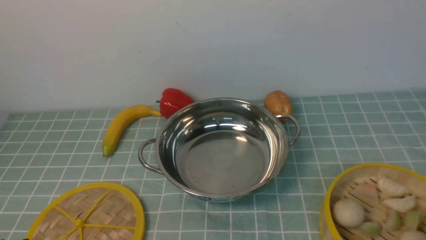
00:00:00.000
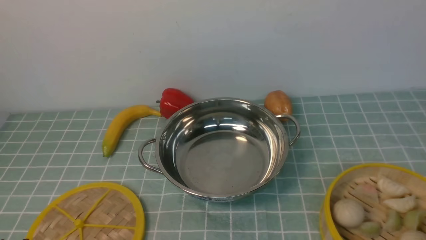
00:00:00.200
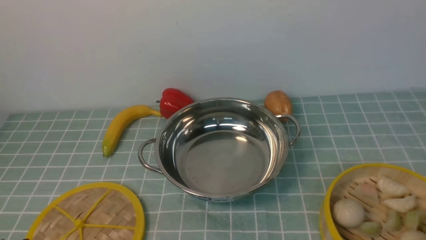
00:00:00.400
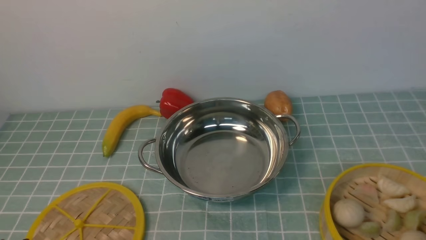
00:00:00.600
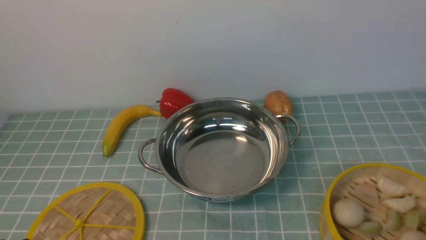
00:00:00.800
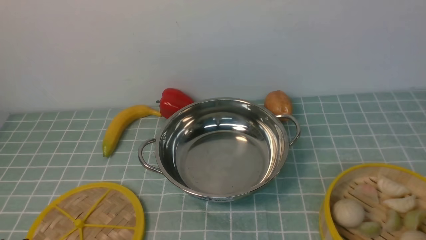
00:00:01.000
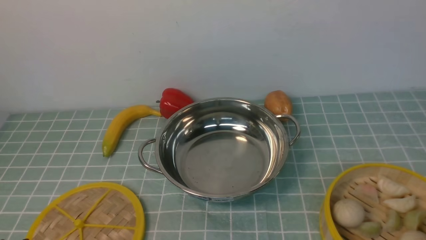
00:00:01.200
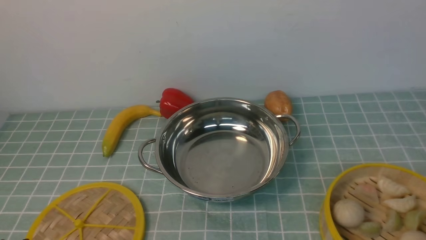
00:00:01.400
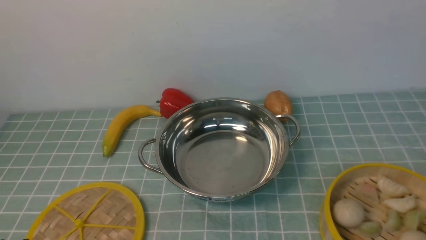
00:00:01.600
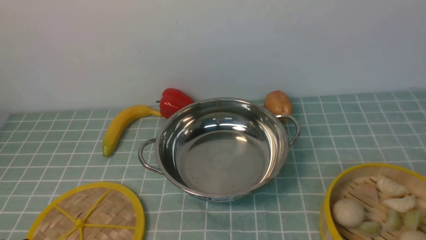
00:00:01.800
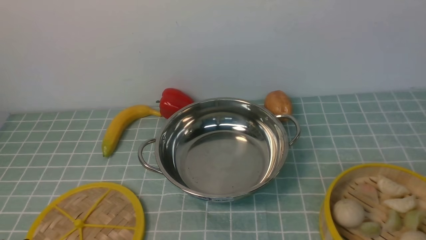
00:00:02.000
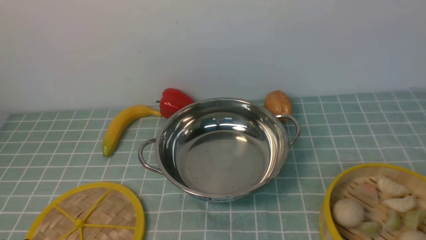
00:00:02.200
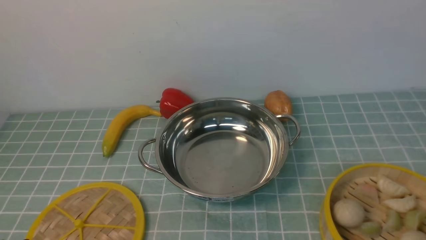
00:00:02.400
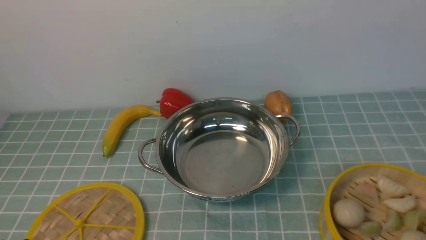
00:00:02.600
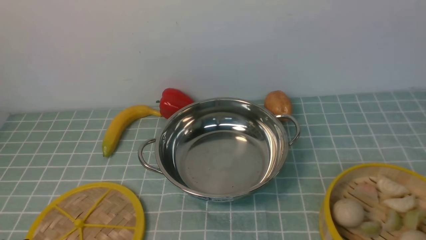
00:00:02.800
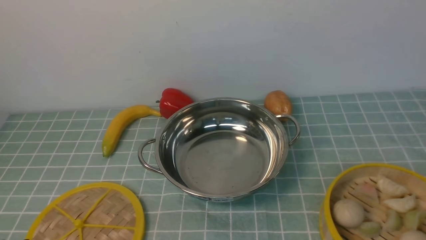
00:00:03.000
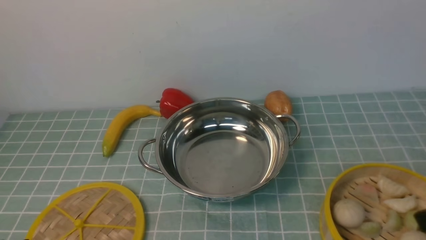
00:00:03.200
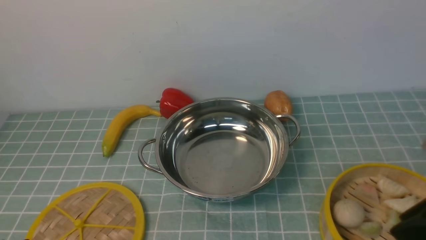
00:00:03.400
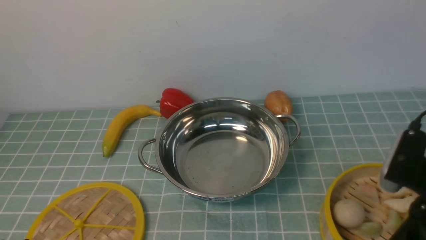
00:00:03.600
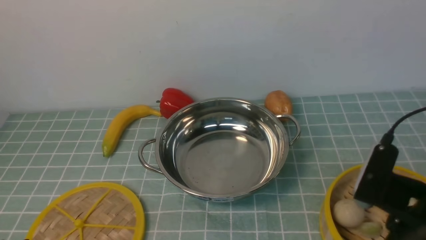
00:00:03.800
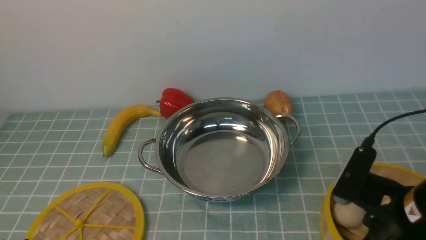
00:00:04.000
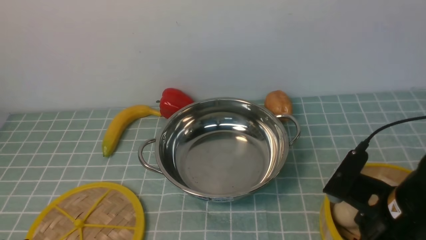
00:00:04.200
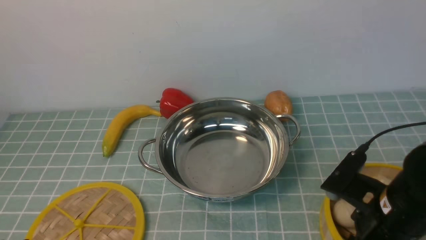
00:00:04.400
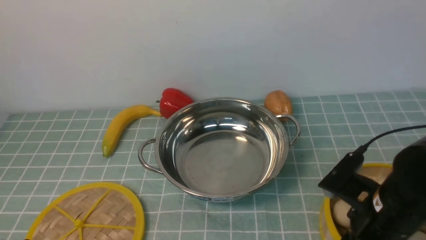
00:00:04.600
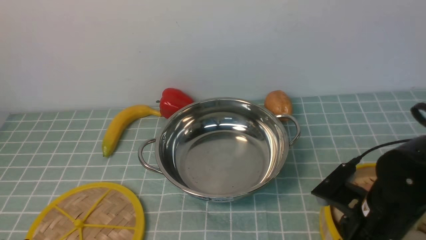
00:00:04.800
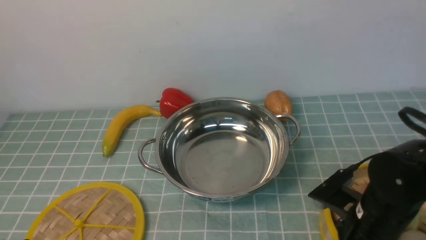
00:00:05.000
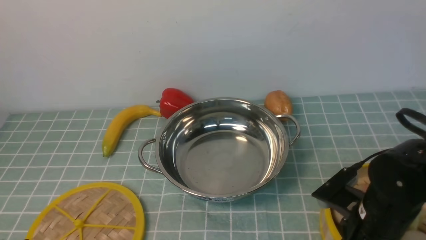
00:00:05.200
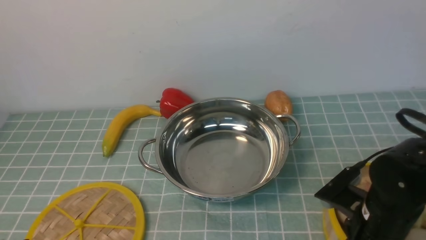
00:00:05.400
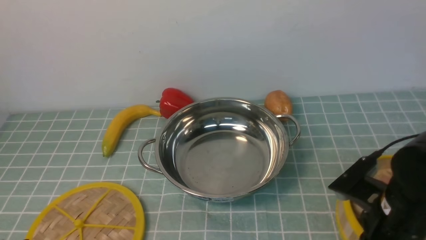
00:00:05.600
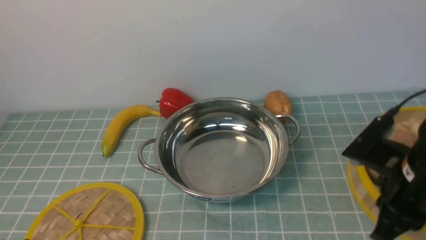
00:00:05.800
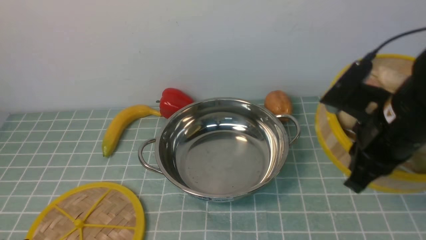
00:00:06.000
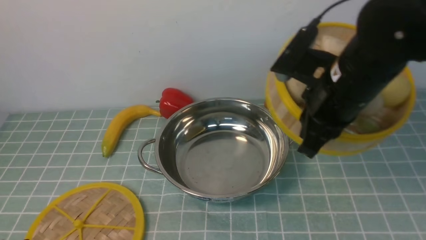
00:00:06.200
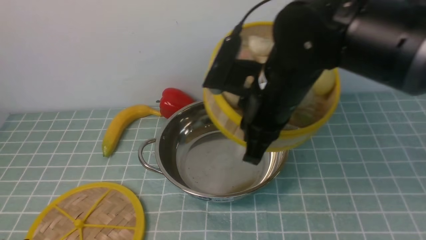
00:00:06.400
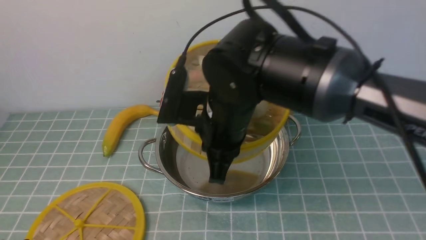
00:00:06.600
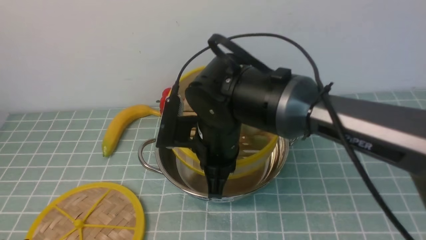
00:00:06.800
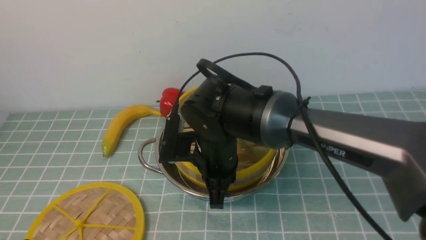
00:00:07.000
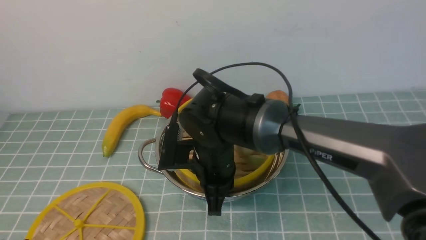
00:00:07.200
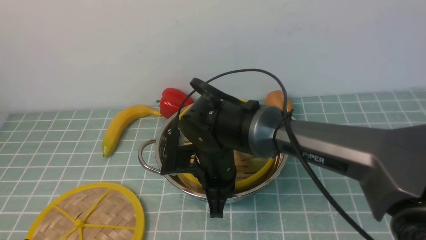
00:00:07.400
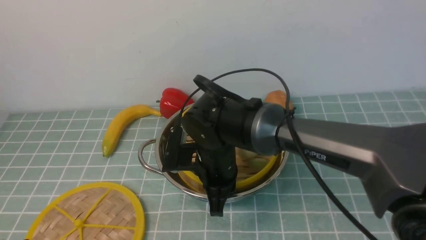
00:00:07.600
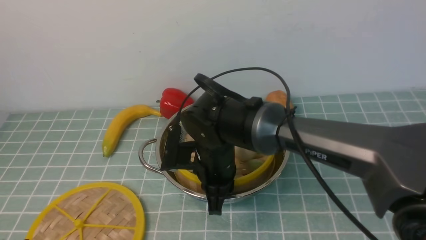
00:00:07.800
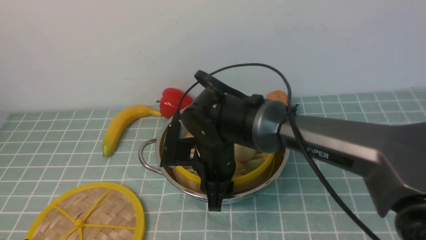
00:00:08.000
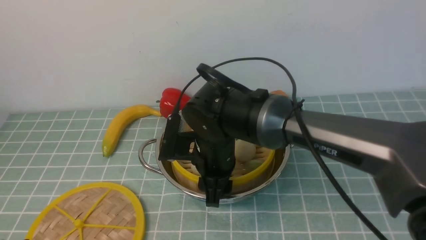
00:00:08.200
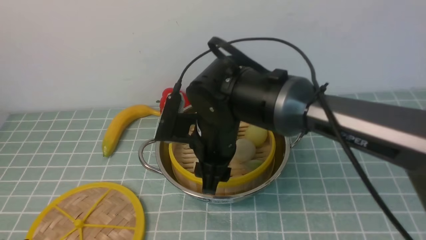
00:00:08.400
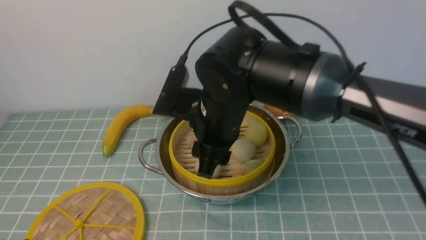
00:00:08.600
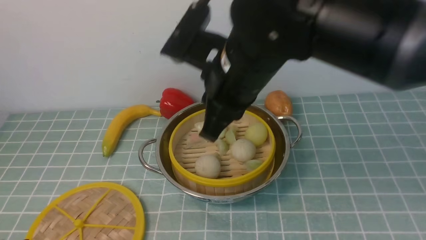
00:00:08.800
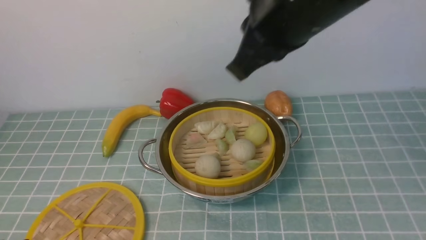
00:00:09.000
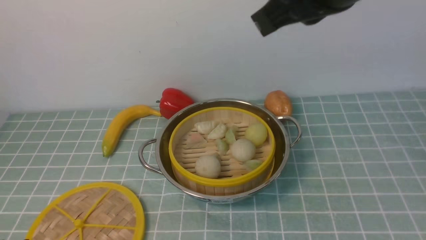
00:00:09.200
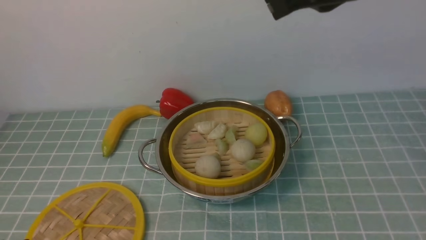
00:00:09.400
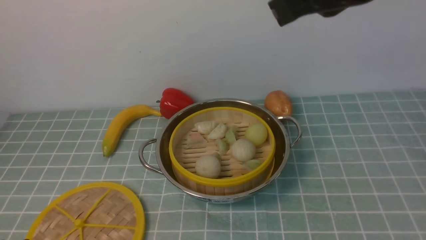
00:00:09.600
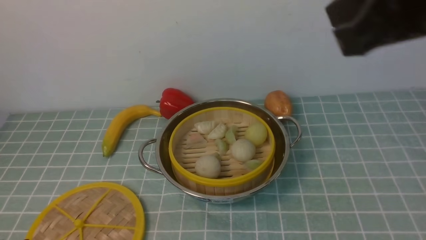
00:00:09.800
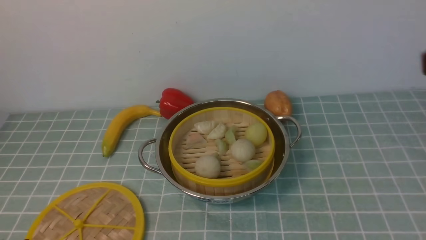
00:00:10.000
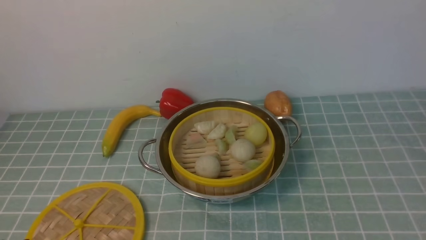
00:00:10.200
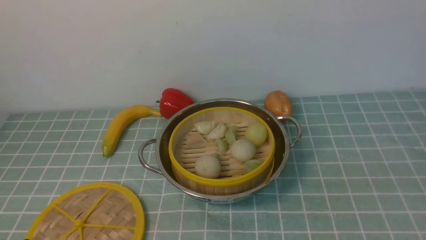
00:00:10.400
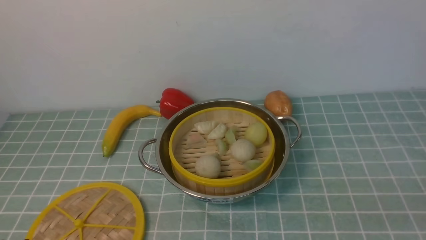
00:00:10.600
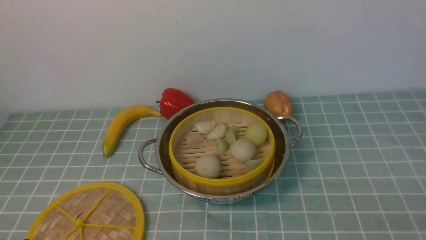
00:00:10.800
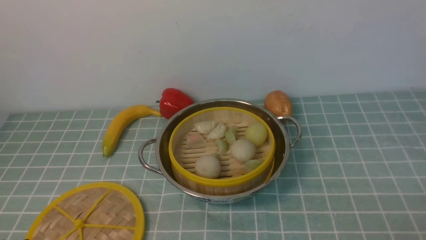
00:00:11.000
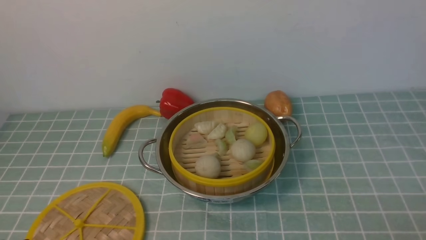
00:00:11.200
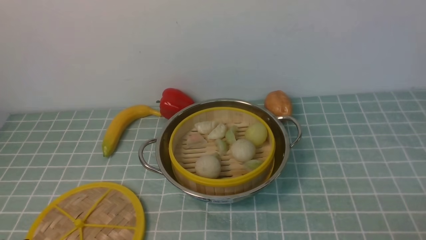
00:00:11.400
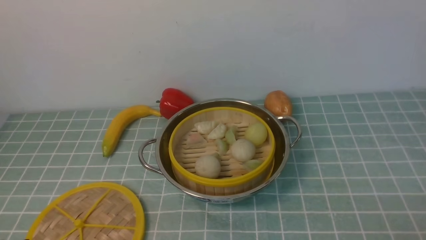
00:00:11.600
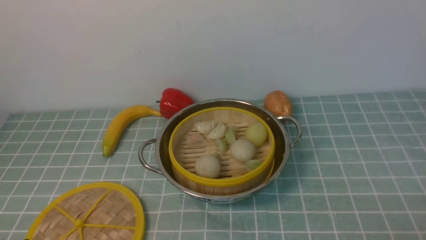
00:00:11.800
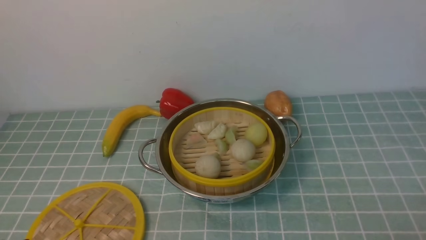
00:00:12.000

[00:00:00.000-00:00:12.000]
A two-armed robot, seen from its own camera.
Task of the whole recording: place the steamer in the pot on the blue tablecloth, and put the lid on the steamer.
Step, 00:00:00.000 to 00:00:06.200: use the right arm to lift the steamer closest to it.
Step, 00:00:06.400 to 00:00:08.800: use the right arm to put the steamer into the iron steamer pot in the middle.
00:00:03.000 to 00:00:04.400: The right gripper travels forward, downward and to the left by some 20 cm.
00:00:04.400 to 00:00:06.000: The right gripper moves upward and forward, approximately 10 cm, and closes up.
00:00:06.000 to 00:00:07.600: The right gripper moves to the left and downward, about 25 cm.
00:00:07.600 to 00:00:09.000: The right gripper travels upward by some 25 cm, and opens, then closes again.
00:00:09.000 to 00:00:10.400: The right gripper goes about 35 cm to the right, backward and downward.

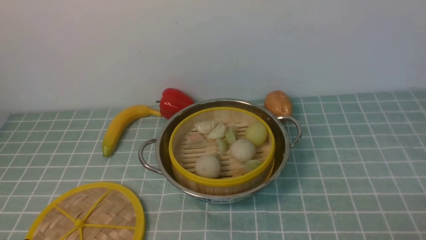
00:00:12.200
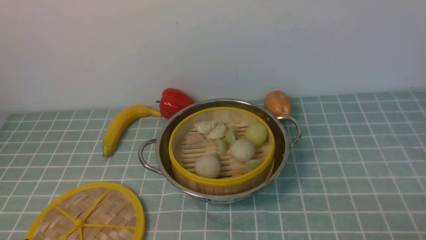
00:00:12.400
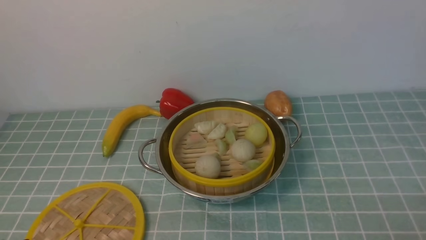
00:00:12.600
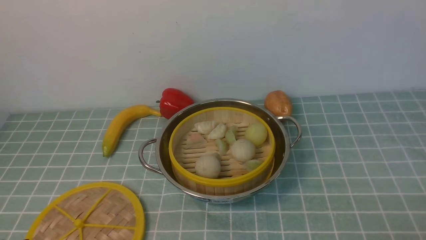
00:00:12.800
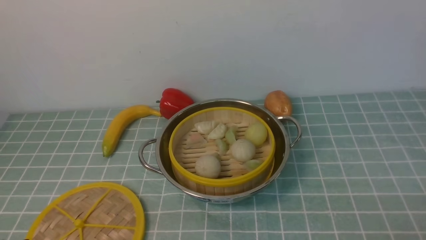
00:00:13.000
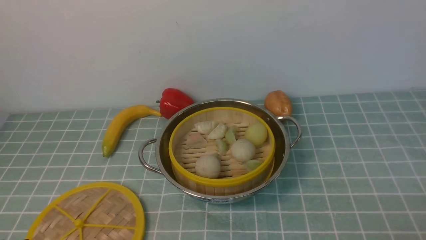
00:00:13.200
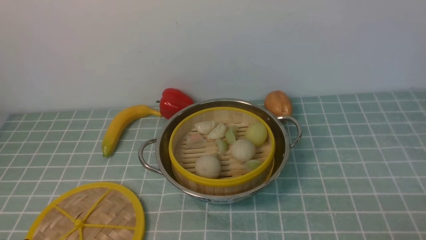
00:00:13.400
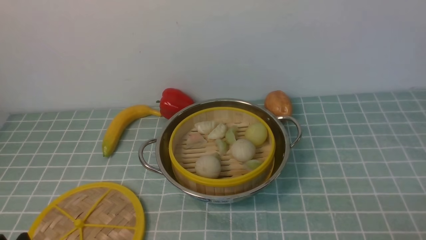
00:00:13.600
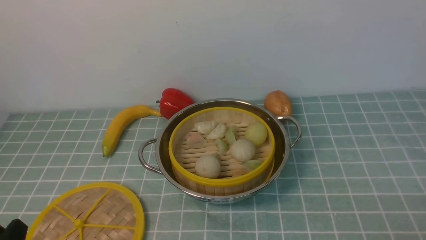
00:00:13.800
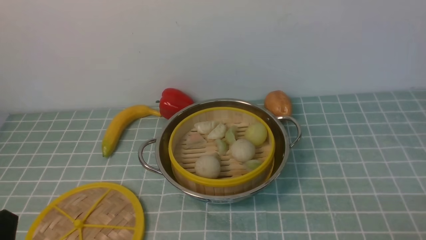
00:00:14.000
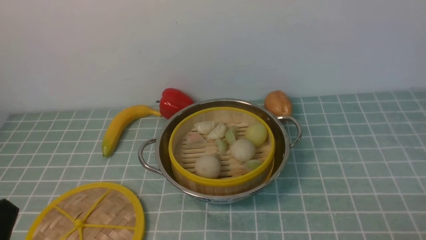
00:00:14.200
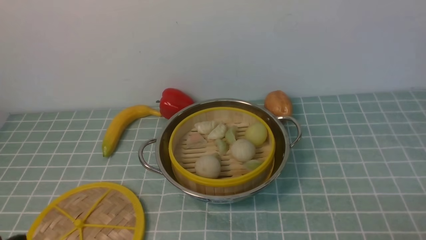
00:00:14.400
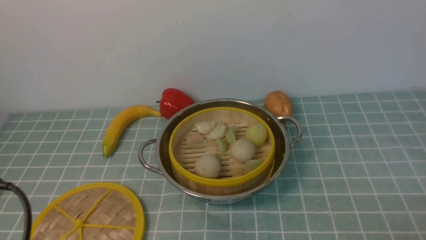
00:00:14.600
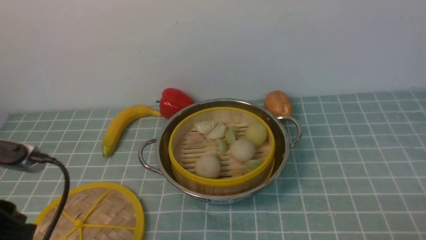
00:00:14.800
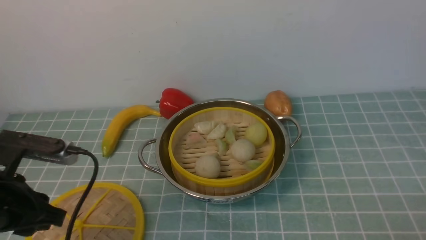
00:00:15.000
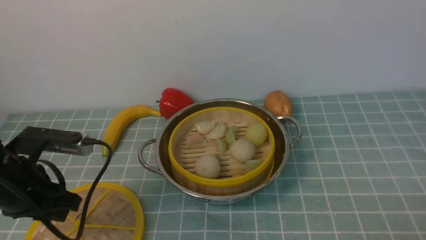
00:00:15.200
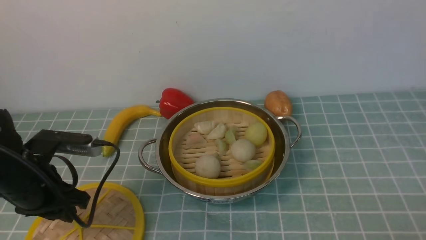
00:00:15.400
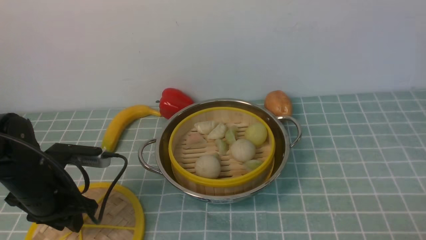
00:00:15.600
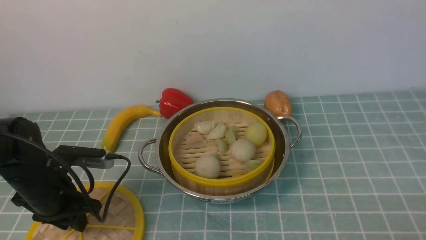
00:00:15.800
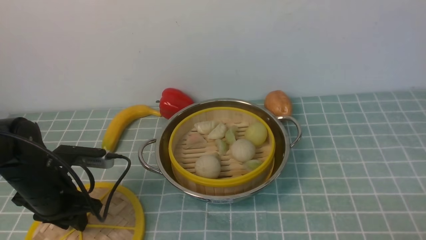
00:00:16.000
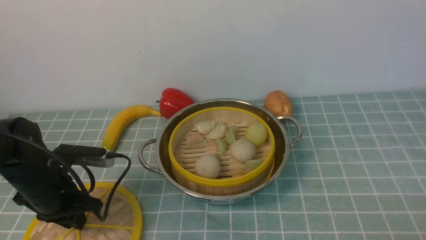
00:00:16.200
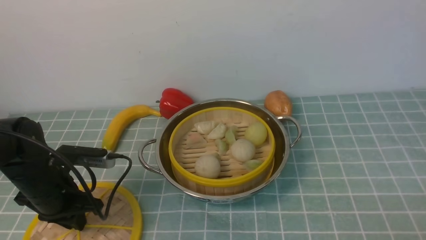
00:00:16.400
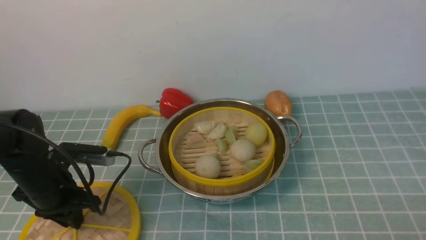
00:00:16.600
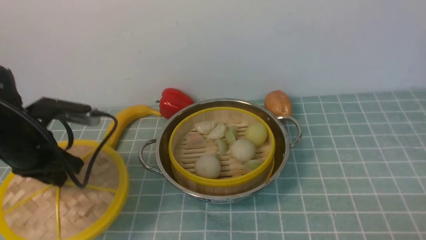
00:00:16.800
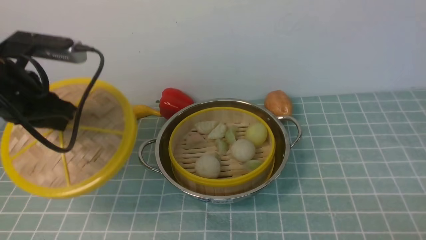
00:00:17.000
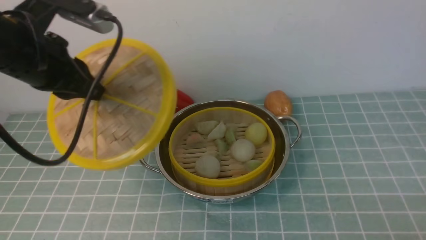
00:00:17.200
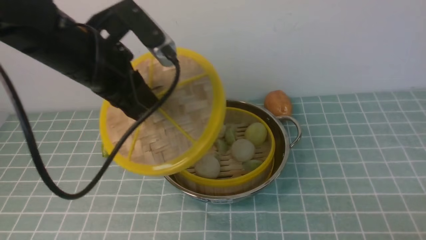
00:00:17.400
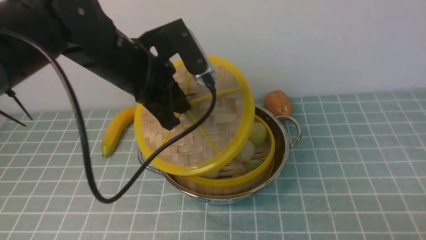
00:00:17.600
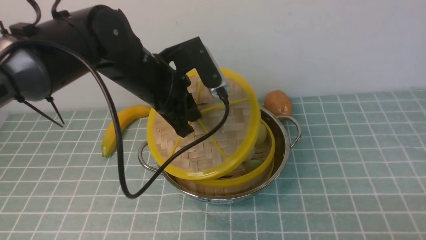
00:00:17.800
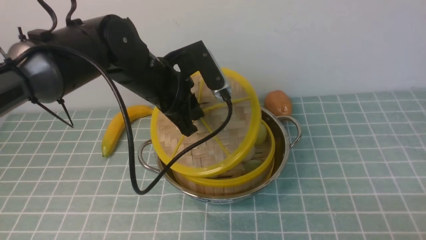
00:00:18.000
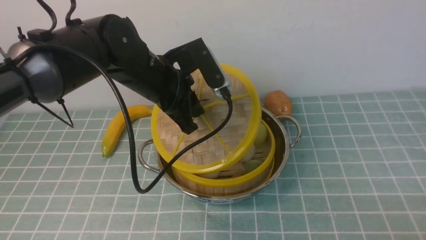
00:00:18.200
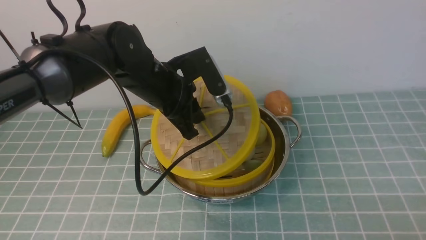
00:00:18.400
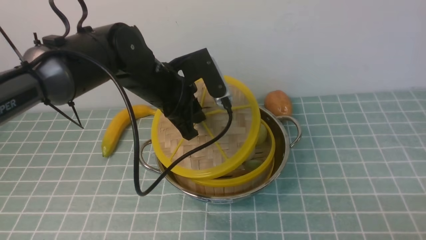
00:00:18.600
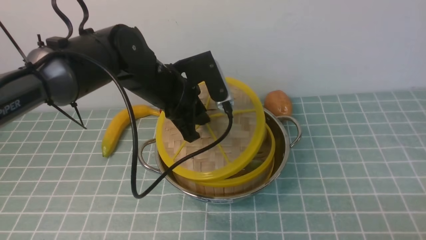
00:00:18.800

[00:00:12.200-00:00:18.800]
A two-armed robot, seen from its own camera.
Task of the whole recording: place the steamer in the pot on the blue tablecloth, and put the lid on the steamer.
Step, 00:00:12.200 to 00:00:16.800: use the left arm to lift the lid of the steamer.
00:00:13.800 to 00:00:15.400: The left gripper moves forward, roughly 20 cm.
00:00:15.400 to 00:00:17.200: The left gripper shifts roughly 15 cm upward, and closes its fingers.
00:00:17.200 to 00:00:18.800: The left gripper shifts about 15 cm to the right, downward and forward.
